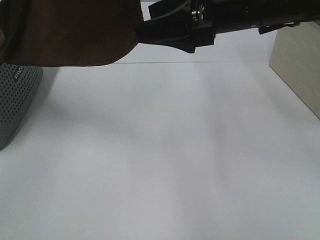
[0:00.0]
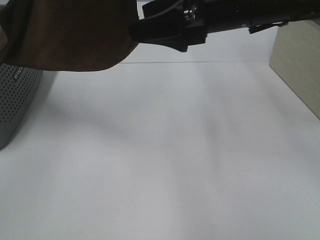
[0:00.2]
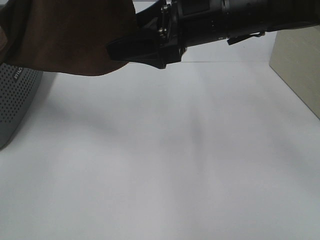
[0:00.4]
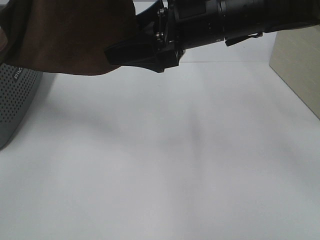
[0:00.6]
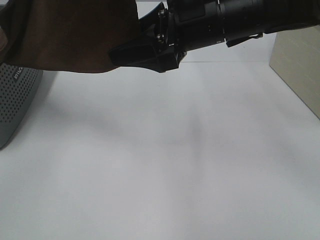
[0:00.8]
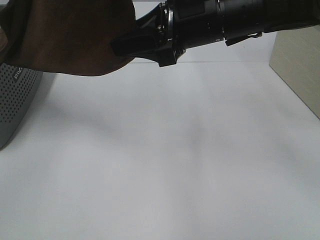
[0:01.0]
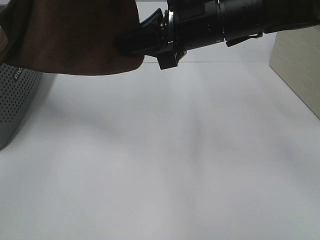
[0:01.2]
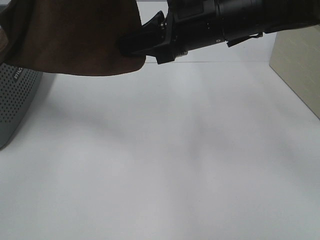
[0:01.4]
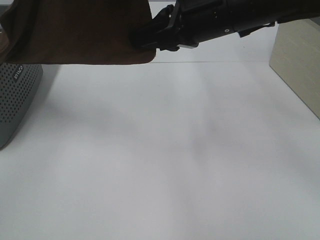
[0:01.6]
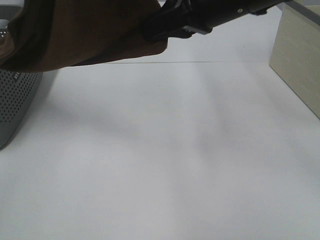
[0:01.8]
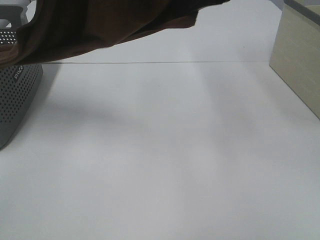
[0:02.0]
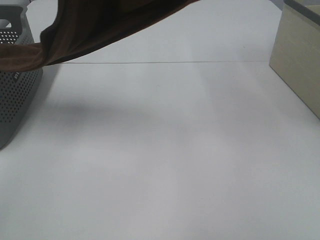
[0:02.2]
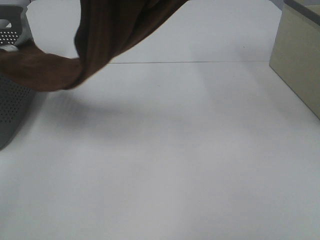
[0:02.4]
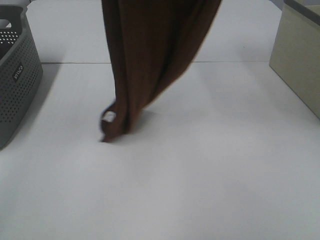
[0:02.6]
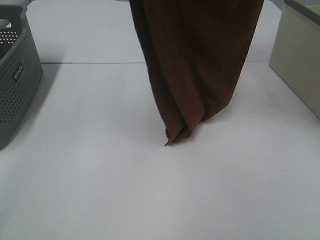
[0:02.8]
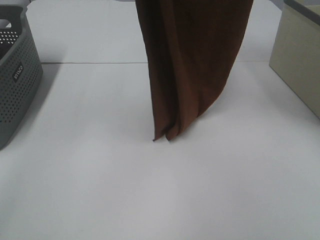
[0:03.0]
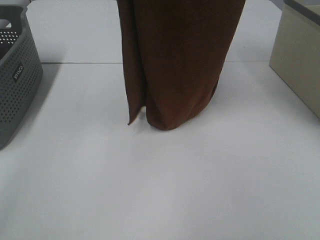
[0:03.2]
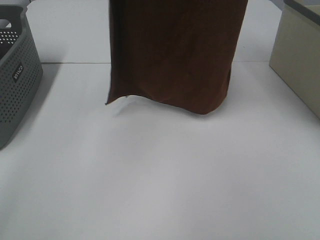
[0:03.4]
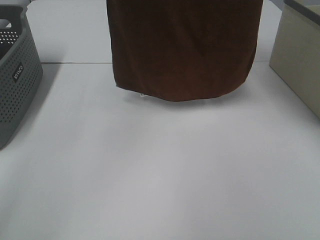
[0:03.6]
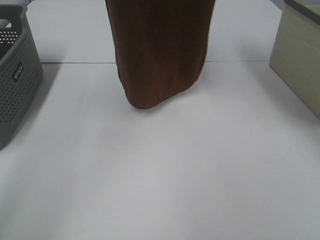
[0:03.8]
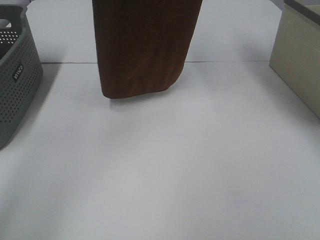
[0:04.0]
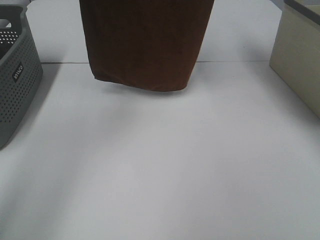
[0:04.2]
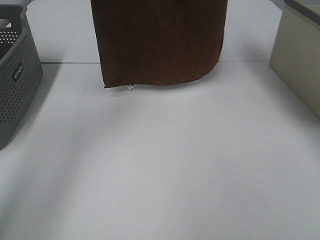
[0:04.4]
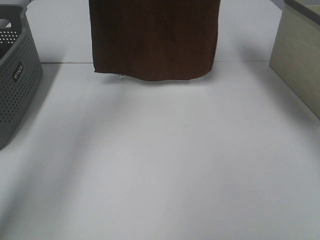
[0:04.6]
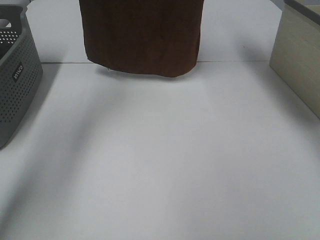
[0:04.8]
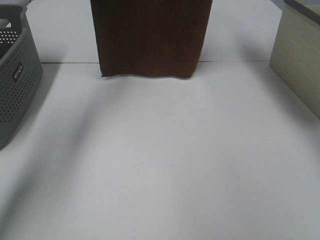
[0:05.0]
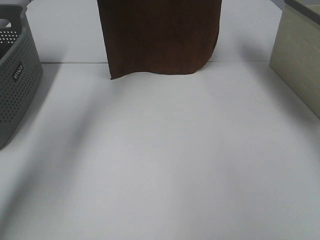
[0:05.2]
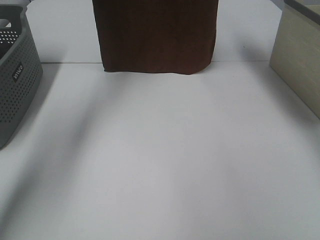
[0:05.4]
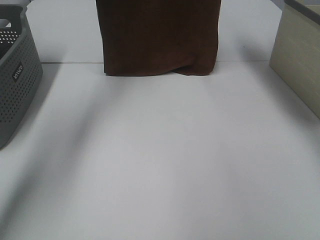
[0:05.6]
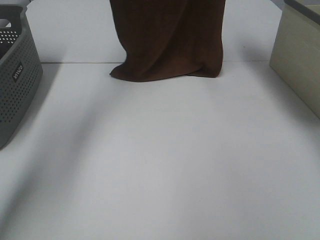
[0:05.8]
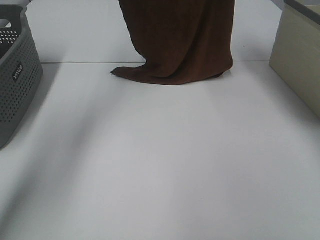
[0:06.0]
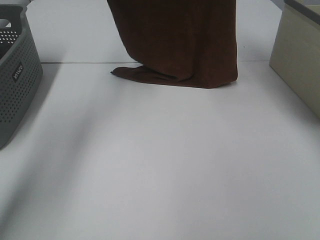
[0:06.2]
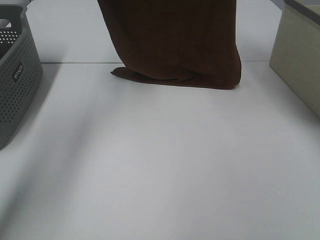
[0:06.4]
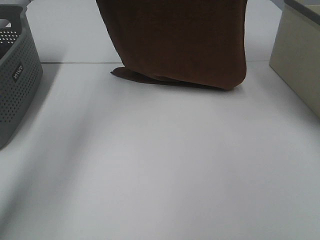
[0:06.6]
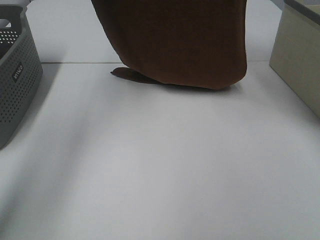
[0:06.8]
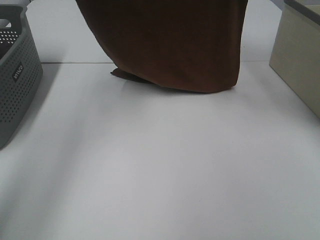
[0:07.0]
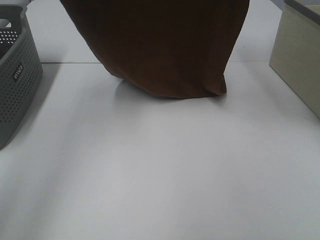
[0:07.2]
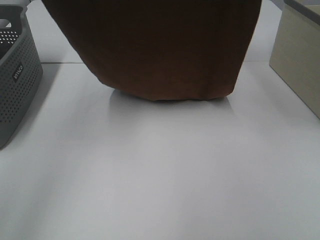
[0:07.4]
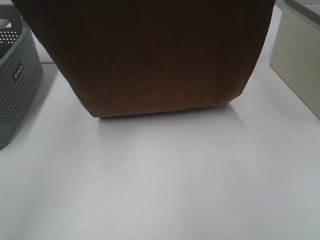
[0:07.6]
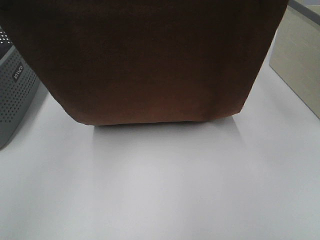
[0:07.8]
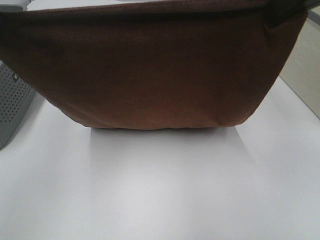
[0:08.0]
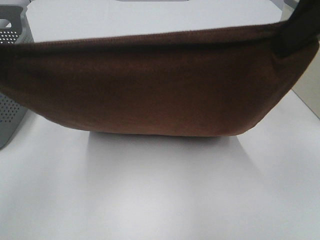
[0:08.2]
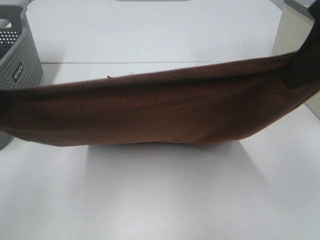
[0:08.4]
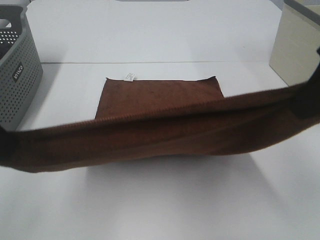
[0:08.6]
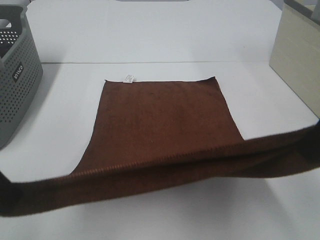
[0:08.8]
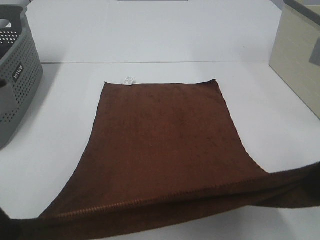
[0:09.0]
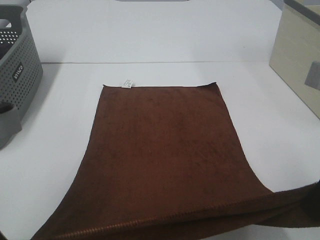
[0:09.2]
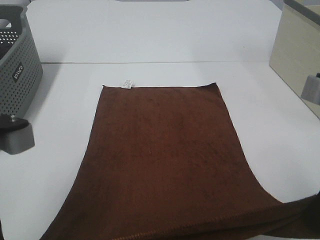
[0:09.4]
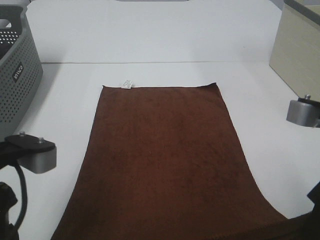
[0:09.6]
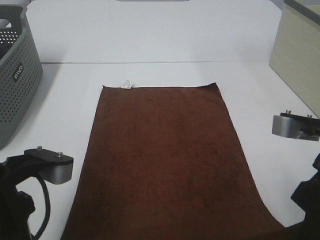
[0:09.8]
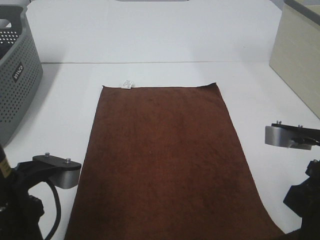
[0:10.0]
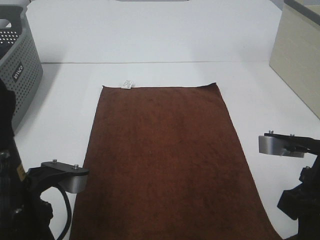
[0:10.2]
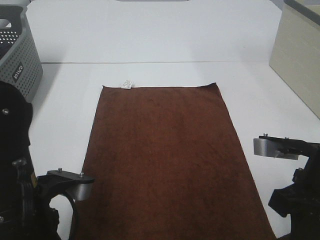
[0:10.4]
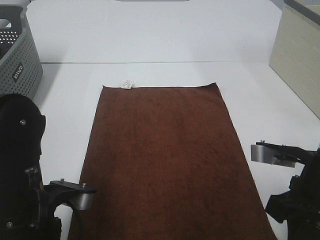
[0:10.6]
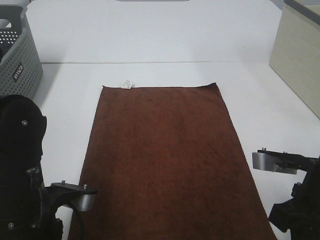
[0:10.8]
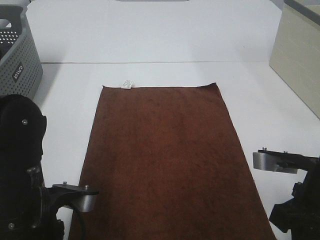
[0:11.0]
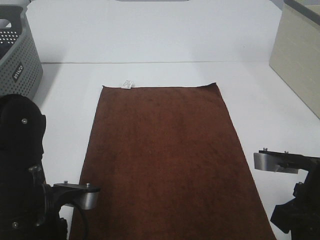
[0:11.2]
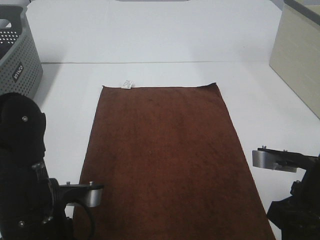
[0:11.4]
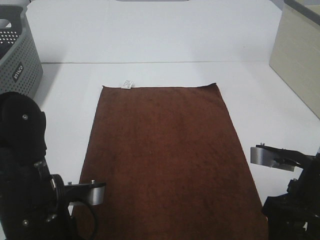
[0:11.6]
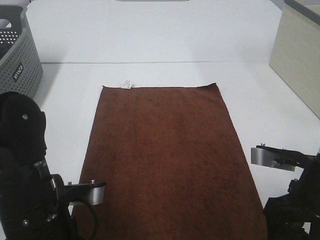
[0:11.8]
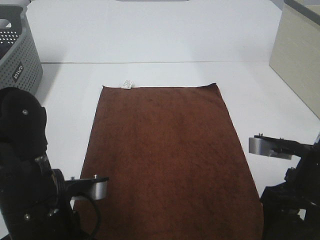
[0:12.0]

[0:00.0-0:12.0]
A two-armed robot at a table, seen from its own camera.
Task of the whole recording: Remove the towel and place it.
Step, 0:00.4 to 0:06.8: Left hand: spread the brown towel flat on the table.
Step, 0:00.4 to 0:06.8: Right hand: spread the brown towel flat on the table.
0:00.0 to 0:01.6: The right gripper closes up.
0:01.6 to 0:03.0: The right gripper moves upward, roughly 25 cm. The left gripper is displaced forward by roughly 10 cm.
0:03.0 to 0:04.4: The left gripper shifts approximately 15 cm forward and to the left. The right gripper travels forward by roughly 10 cm.
0:04.4 to 0:06.0: The left gripper heads downward and forward, covering some 10 cm. Meanwhile the right gripper goes about 5 cm downward.
0:06.0 to 0:07.6: The two grippers go approximately 20 cm backward.
0:07.6 to 0:09.0: The left gripper is displaced backward and downward by approximately 20 cm; the right gripper heads downward and backward, covering roughly 20 cm.
0:09.0 to 0:10.4: Both grippers move downward, about 10 cm.
0:10.4 to 0:12.0: The left gripper opens its fingers. Meanwhile the right gripper opens.

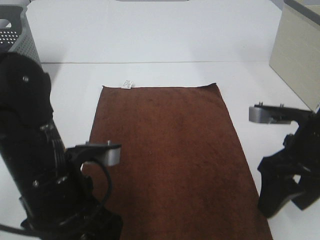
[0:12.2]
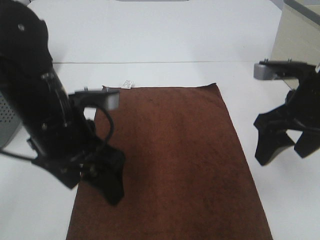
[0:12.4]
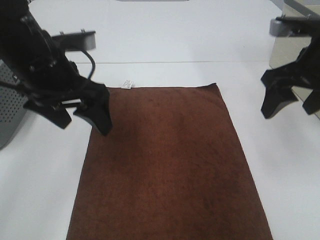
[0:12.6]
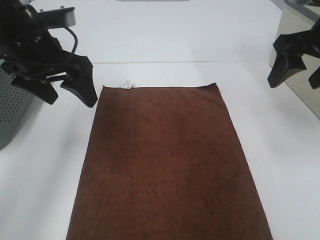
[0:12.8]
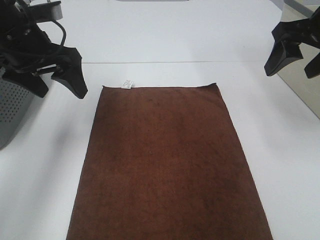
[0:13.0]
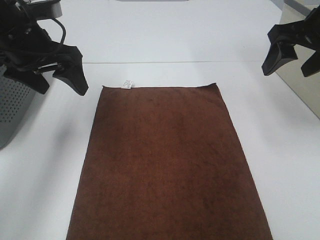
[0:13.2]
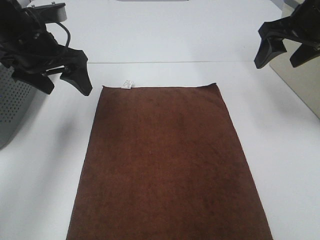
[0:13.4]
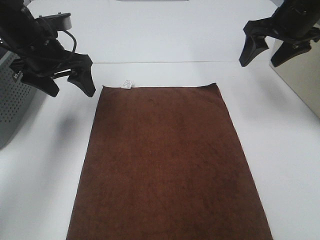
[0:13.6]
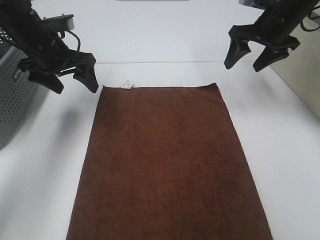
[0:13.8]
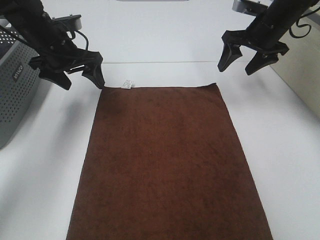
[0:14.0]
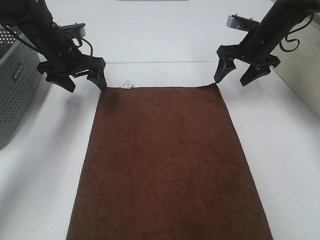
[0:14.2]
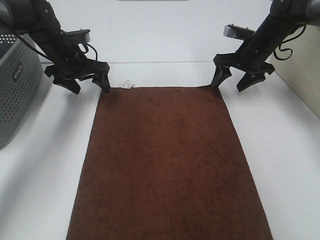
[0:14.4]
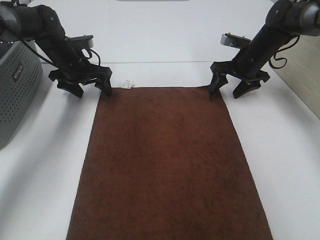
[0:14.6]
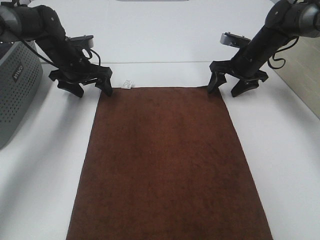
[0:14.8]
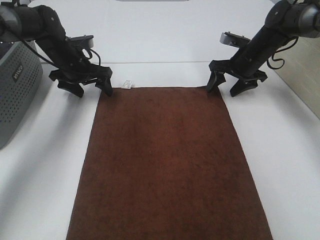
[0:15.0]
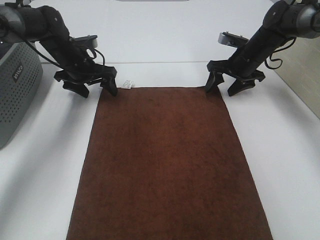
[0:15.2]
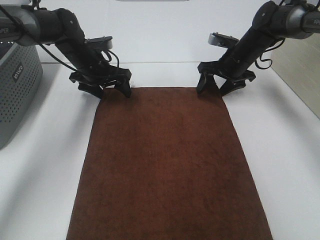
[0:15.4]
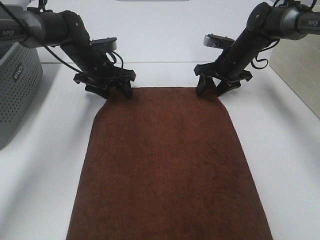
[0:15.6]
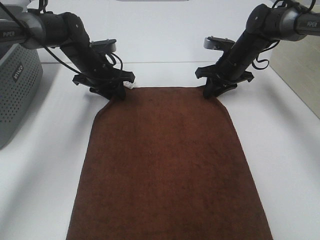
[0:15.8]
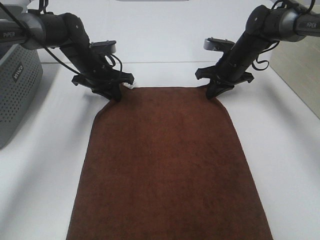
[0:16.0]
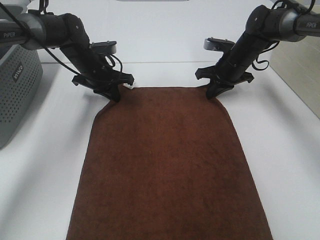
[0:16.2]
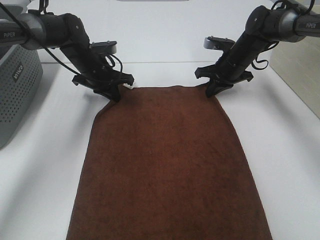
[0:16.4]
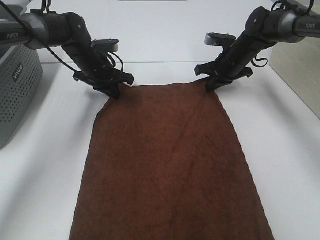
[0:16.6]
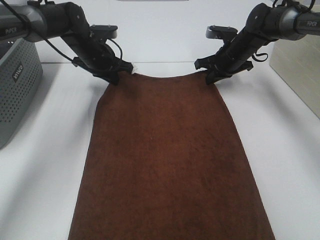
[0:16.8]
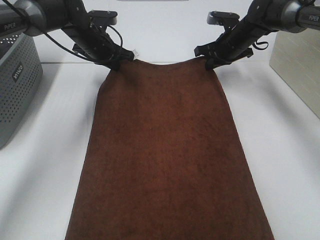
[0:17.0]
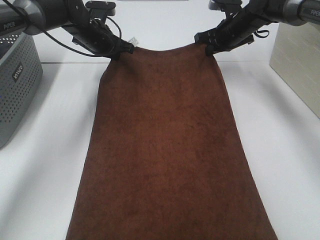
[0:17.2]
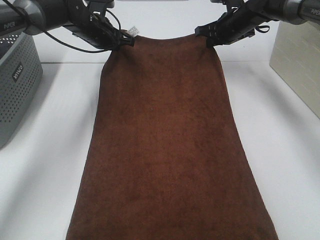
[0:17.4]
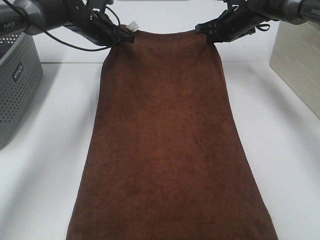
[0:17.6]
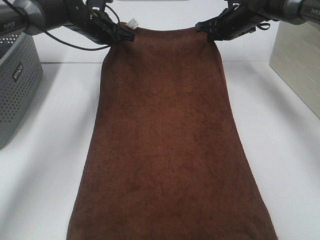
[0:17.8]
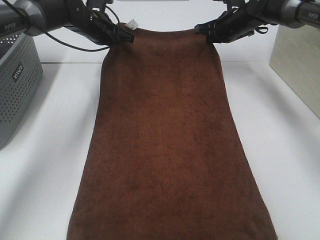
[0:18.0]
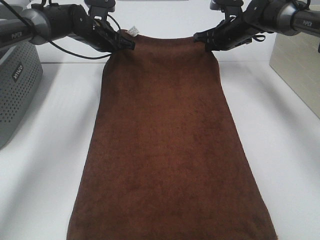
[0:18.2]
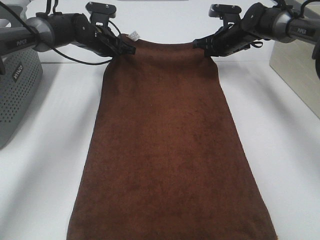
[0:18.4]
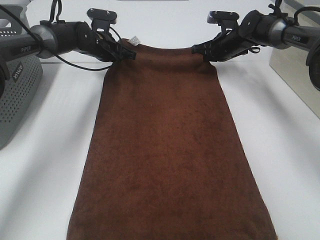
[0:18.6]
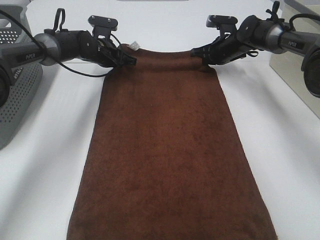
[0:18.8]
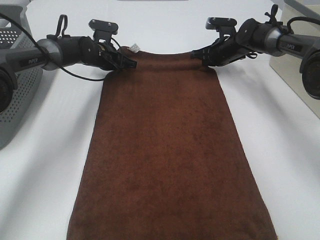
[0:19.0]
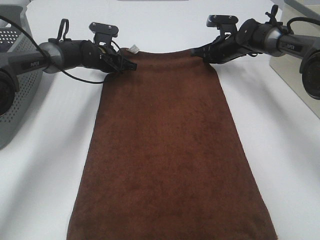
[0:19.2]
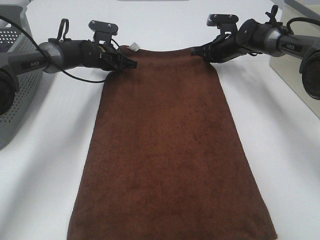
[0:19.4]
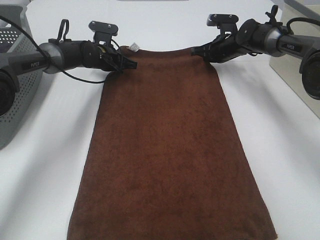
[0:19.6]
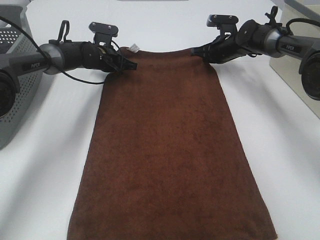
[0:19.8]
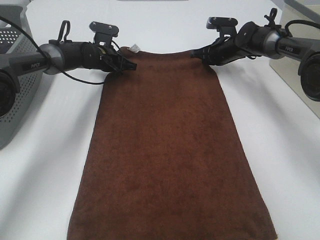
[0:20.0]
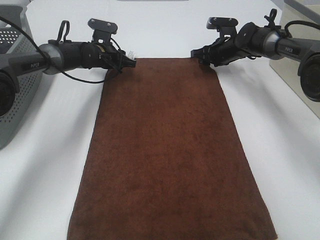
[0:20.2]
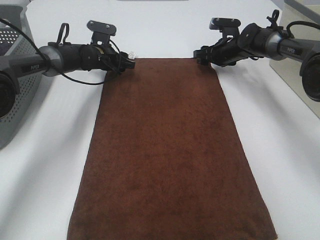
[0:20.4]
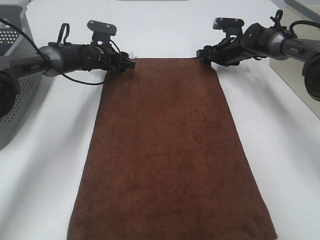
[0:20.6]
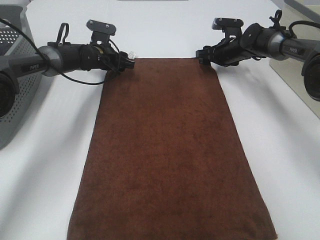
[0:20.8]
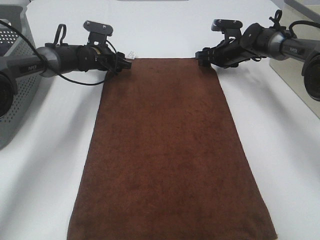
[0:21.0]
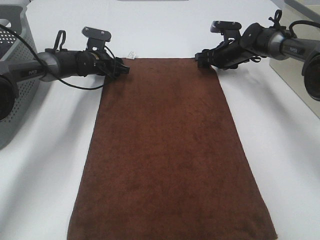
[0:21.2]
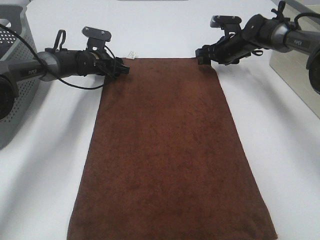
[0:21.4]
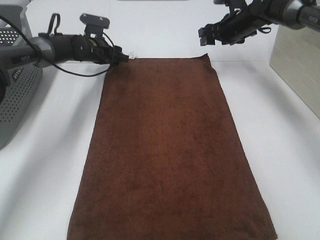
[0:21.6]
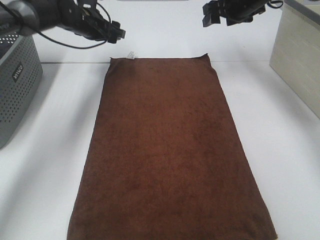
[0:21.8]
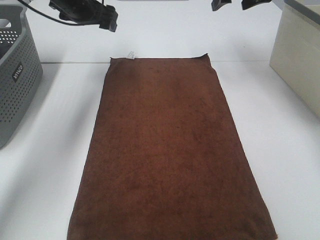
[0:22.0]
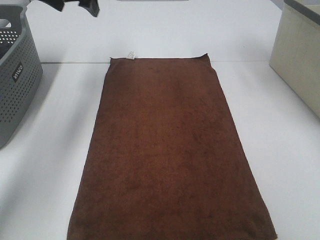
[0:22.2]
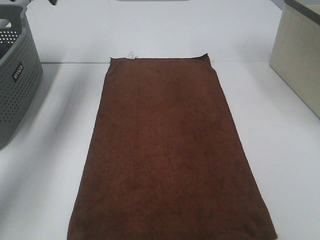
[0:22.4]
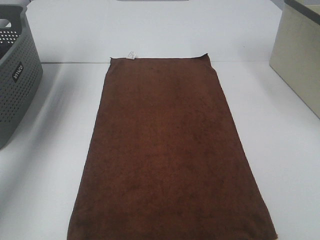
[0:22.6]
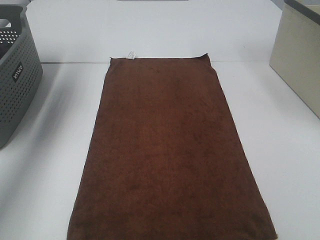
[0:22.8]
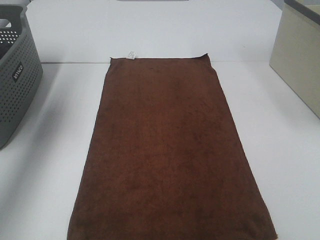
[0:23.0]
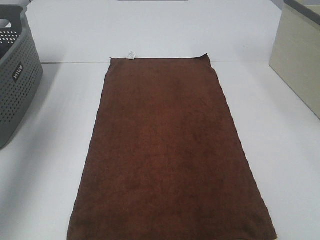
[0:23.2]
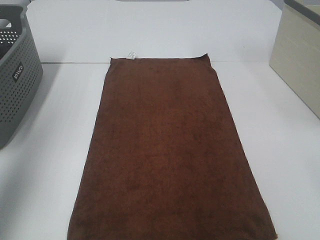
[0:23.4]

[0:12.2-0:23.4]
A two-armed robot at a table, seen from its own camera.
Task of the whole recording: Remove the towel and place it.
0:12.2 to 0:13.8: Both grippers move forward, some 25 cm.
0:13.8 to 0:15.4: The right gripper is displaced downward by about 10 cm, while the left gripper travels downward and forward by roughly 10 cm.
0:15.4 to 0:17.0: The left gripper moves some 5 cm, and closes its fingers. Meanwhile the right gripper closes.
0:18.6 to 0:20.2: The left gripper opens its fingers. The right gripper opens.
0:20.2 to 0:21.8: Both grippers travel together upward, roughly 15 cm. The right gripper opens its fingers.
0:21.8 to 0:23.4: The right gripper heads backward, covering about 40 cm. The left gripper travels backward and upward by roughly 40 cm.
